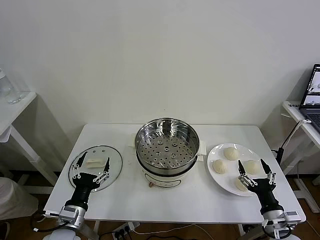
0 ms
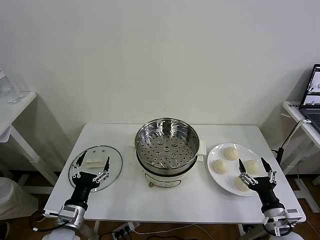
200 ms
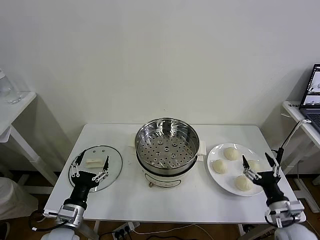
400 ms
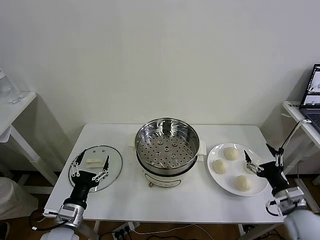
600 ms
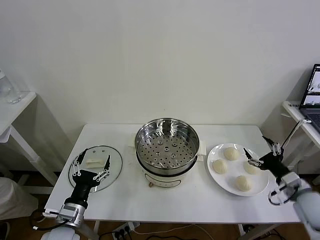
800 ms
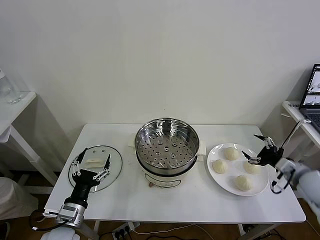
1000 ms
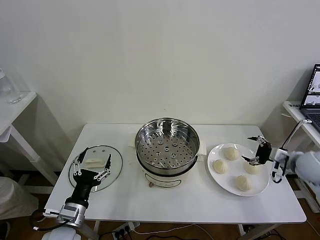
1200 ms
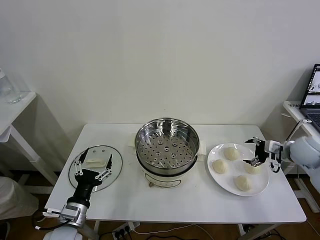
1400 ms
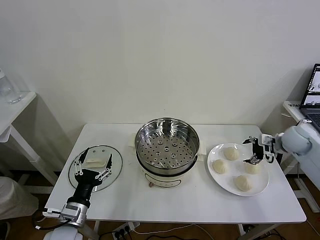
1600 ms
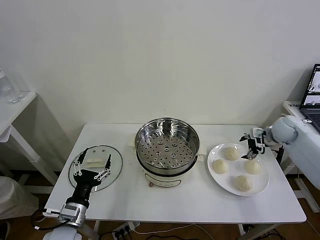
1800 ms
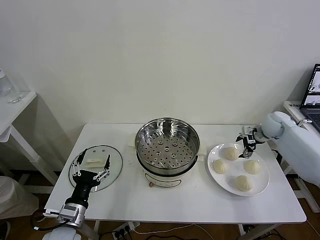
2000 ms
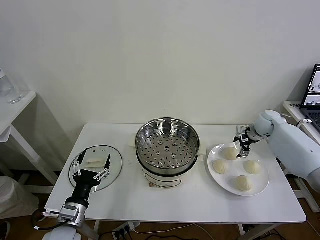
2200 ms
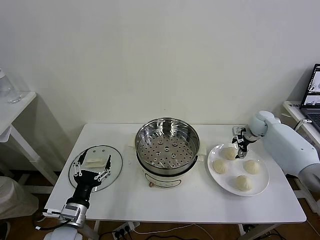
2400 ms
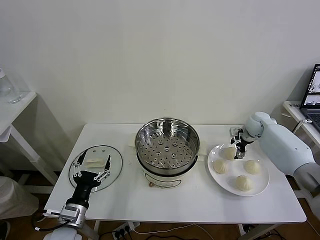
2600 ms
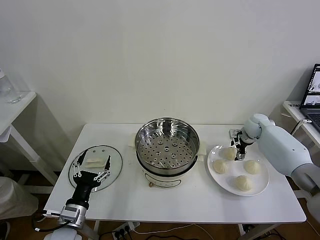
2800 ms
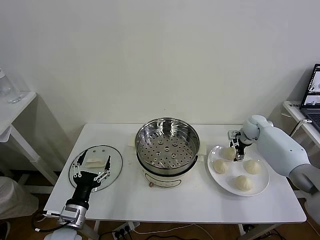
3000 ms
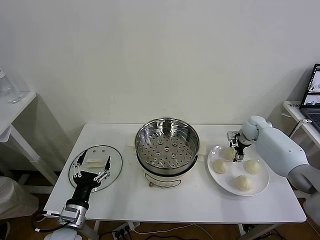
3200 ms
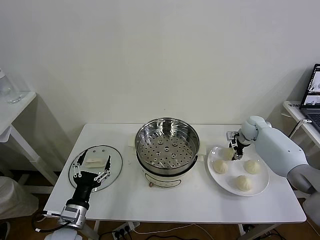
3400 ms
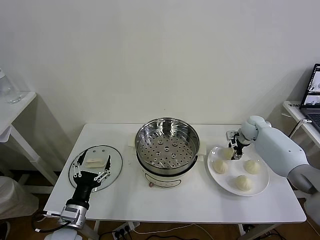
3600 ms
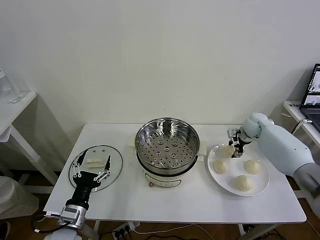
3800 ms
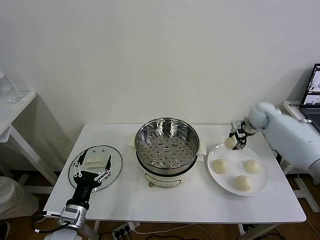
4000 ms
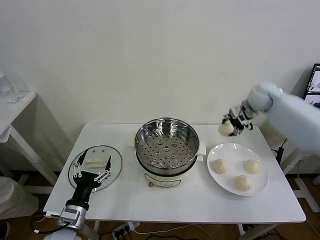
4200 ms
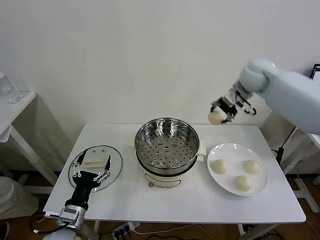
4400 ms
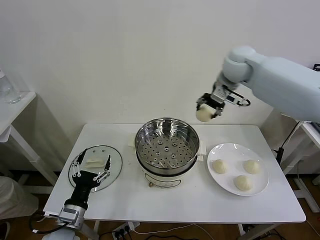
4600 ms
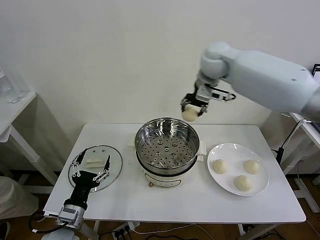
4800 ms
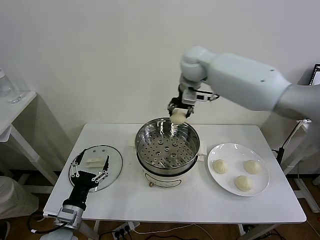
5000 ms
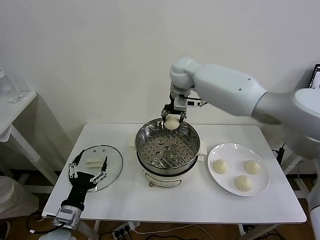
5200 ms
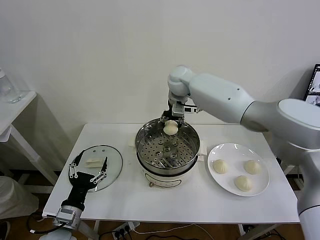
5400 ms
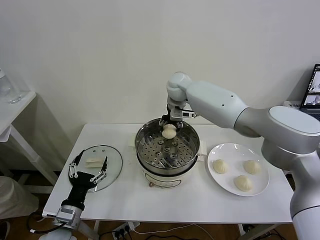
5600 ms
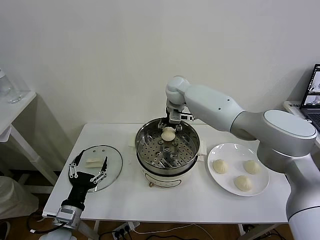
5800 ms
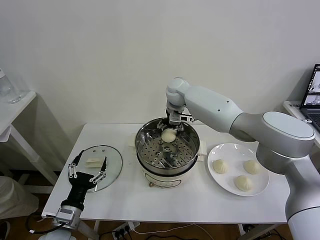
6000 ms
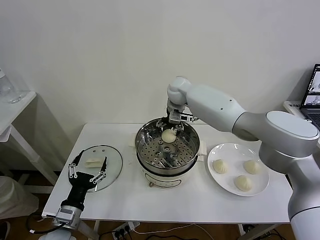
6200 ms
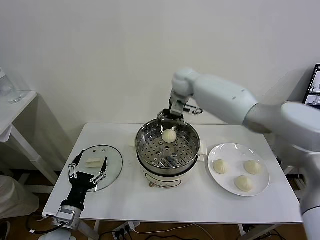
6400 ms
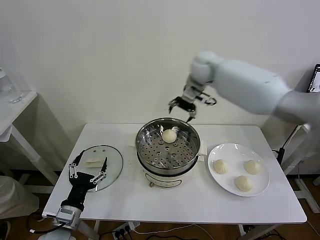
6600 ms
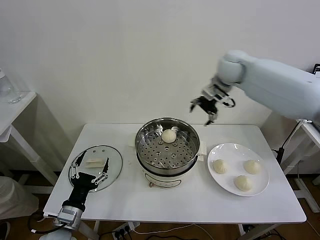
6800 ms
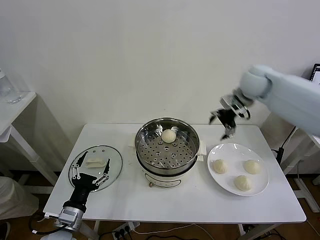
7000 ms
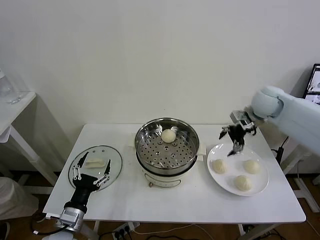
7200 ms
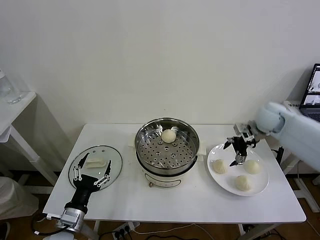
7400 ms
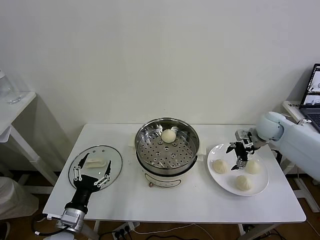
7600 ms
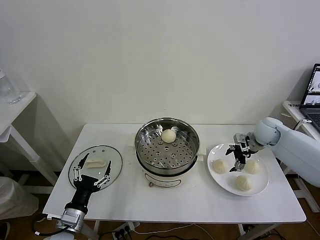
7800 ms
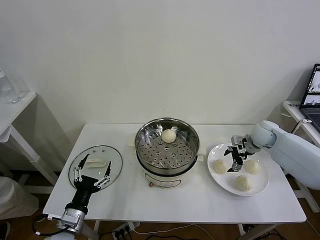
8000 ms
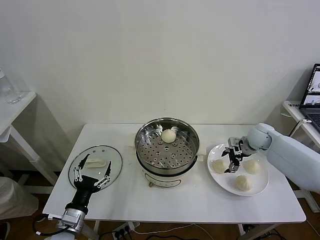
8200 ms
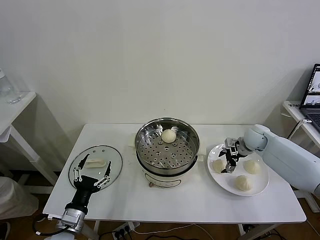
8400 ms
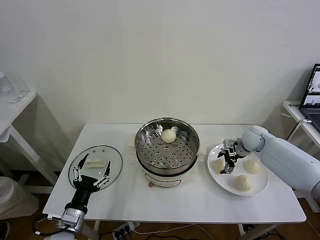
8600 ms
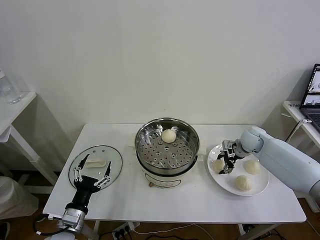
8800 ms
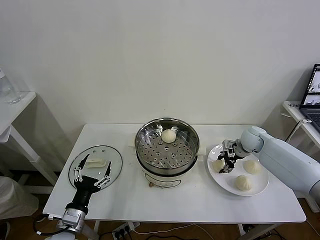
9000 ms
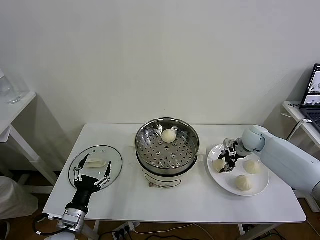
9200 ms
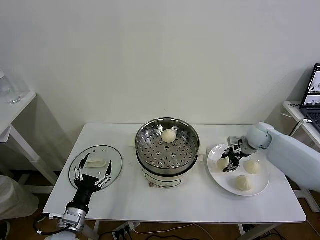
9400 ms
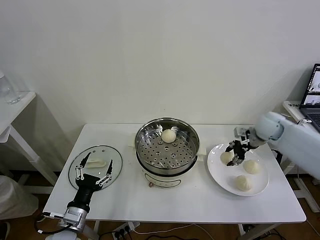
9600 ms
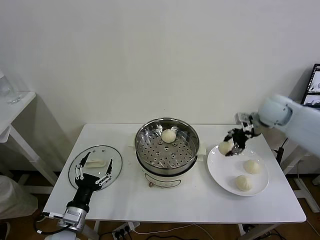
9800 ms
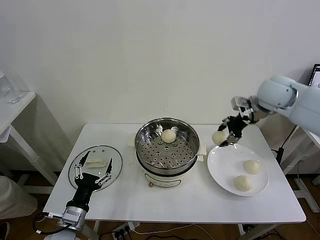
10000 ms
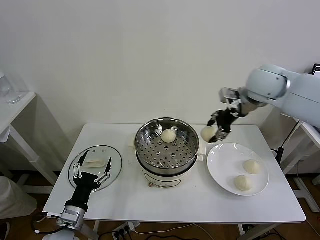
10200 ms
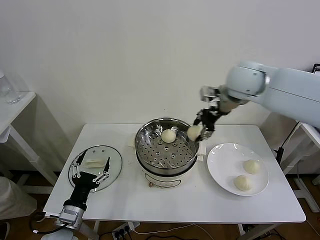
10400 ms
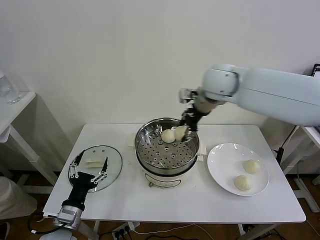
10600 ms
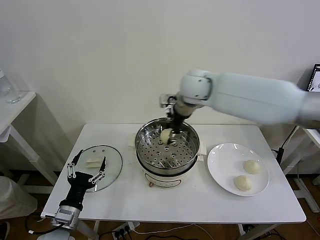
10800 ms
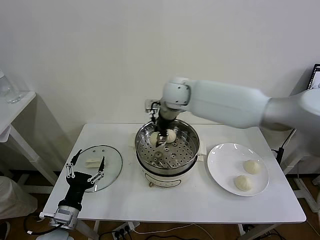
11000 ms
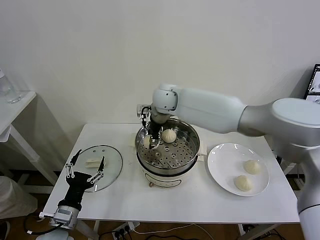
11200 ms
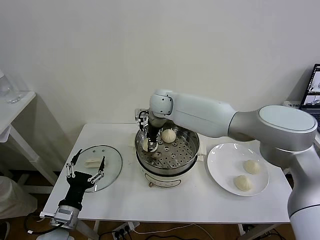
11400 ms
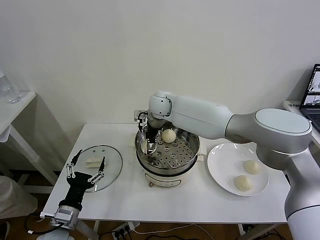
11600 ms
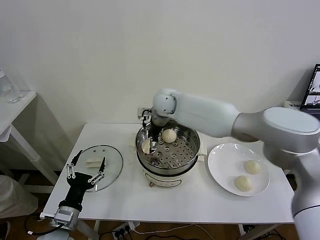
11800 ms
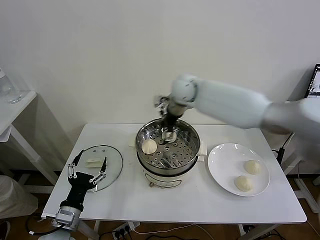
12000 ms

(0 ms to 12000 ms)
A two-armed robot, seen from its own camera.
Task of the whole recording: take steamed baozi put them in steamer then cover it.
Step, 0 ms - 3400 ms: Grasp the baozi in the plate with right gripper.
Step, 3600 ms - 6000 ms: Place the baozi on the steamer with right gripper.
Step, 6400 ms - 8800 ms: Grasp the baozi in the plate with right gripper.
Step, 9200 ms - 11800 ms: Place the baozi on the steamer with right gripper.
1600 ms - 3000 ms: The right gripper shifts approximately 15 cm forward, downward and to the left.
3000 ms - 4400 ms: The right gripper shifts approximately 30 cm upward and to the left, and closes its fingers.
4400 ms - 6000 ms: The right gripper moves to the left and downward, approximately 20 cm, and opens.
6000 ms - 7600 ms: The right gripper is displaced to the right by about 30 cm.
7600 ms - 9000 ms: The right gripper moves downward, approximately 5 cm, and closes up.
9000 ms - 10400 ms: The right gripper goes some 30 cm upward and to the left.
10400 ms - 12000 ms: The right gripper heads to the left and forward, covering approximately 10 cm, and opens up.

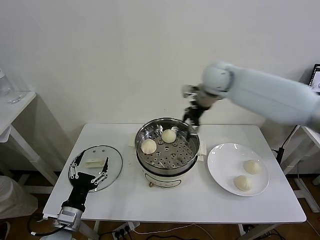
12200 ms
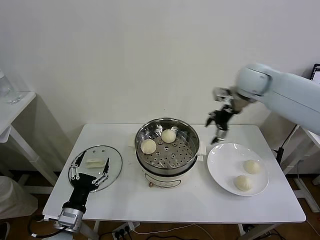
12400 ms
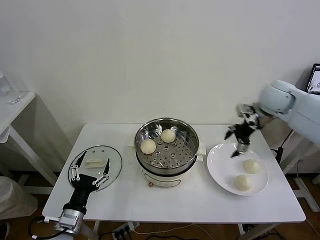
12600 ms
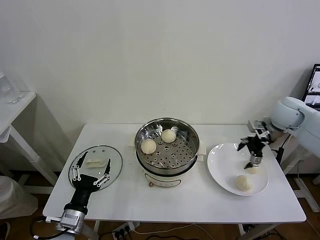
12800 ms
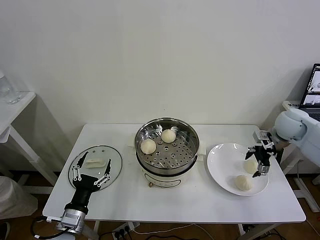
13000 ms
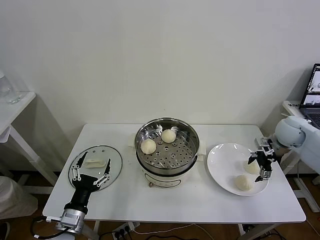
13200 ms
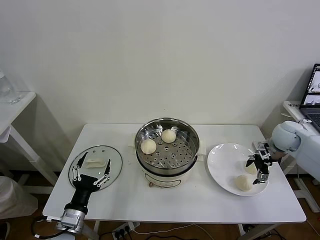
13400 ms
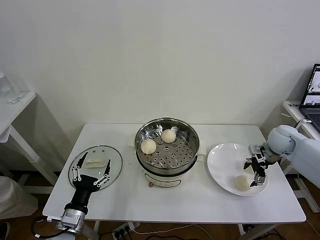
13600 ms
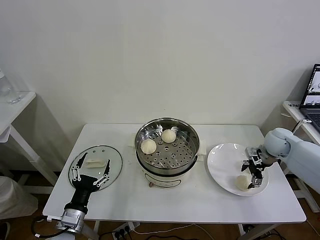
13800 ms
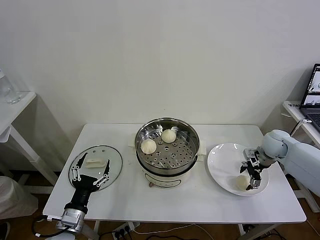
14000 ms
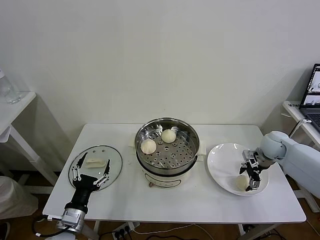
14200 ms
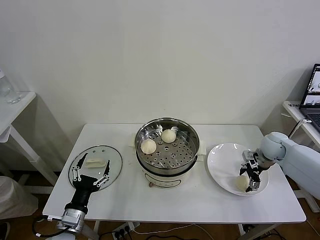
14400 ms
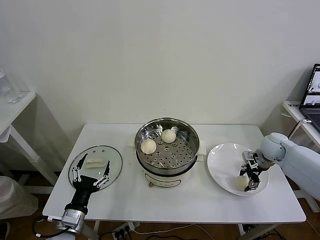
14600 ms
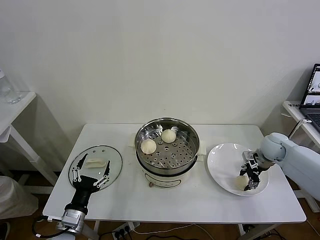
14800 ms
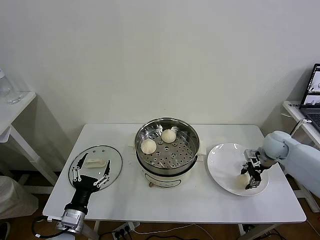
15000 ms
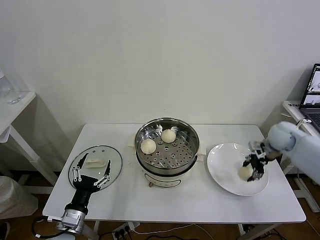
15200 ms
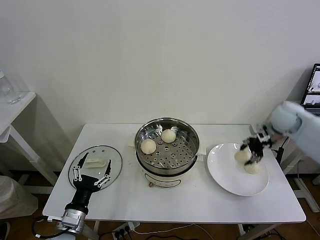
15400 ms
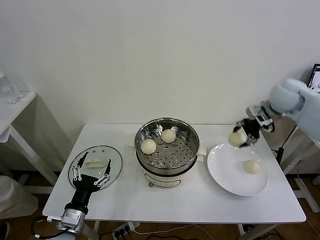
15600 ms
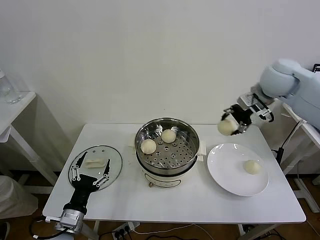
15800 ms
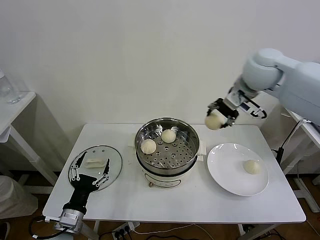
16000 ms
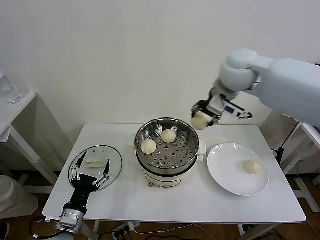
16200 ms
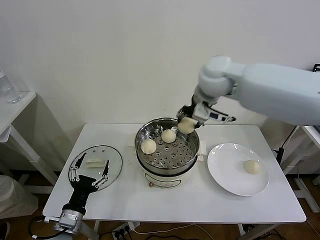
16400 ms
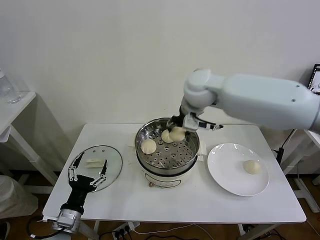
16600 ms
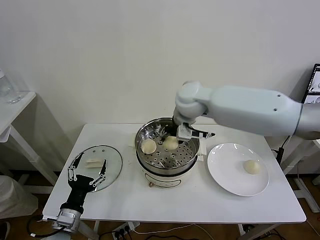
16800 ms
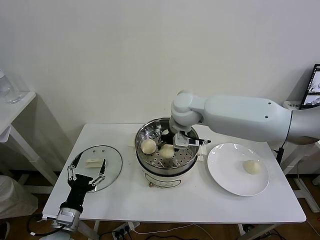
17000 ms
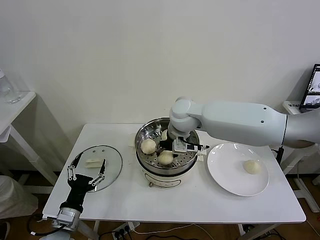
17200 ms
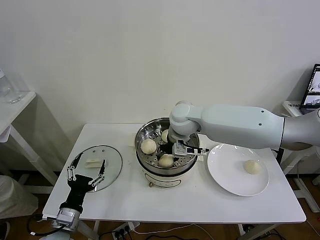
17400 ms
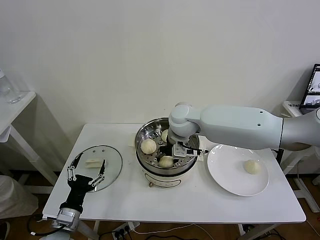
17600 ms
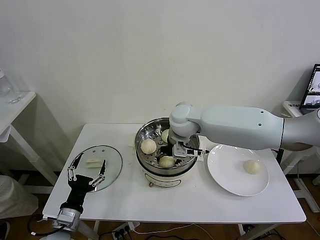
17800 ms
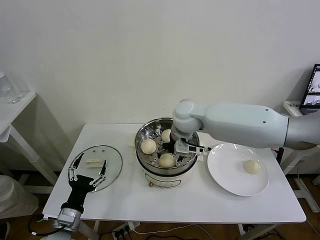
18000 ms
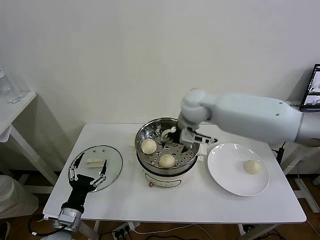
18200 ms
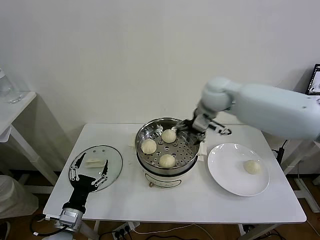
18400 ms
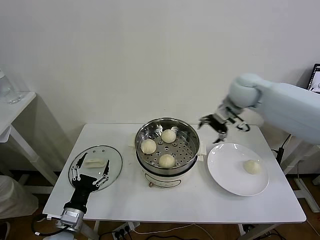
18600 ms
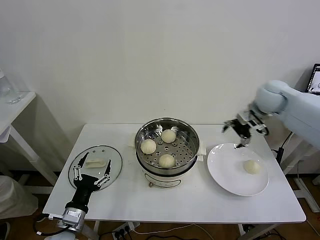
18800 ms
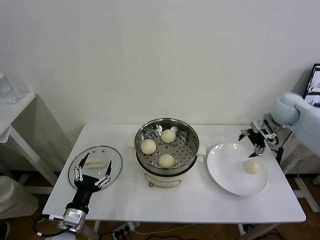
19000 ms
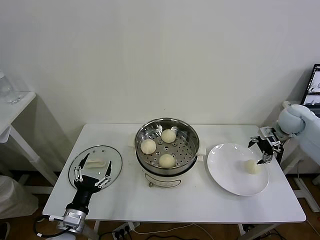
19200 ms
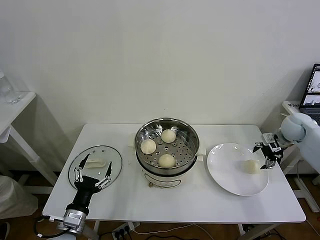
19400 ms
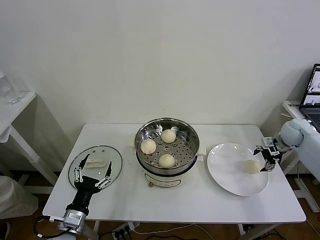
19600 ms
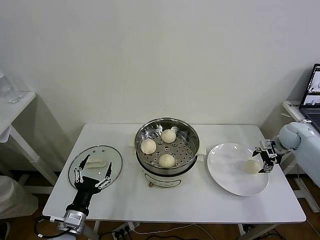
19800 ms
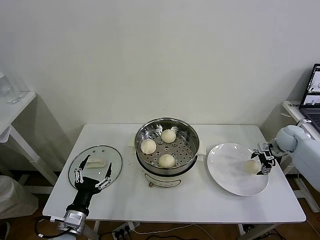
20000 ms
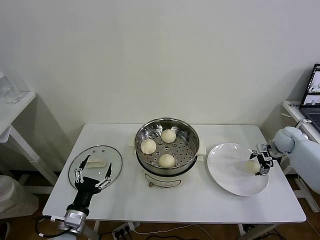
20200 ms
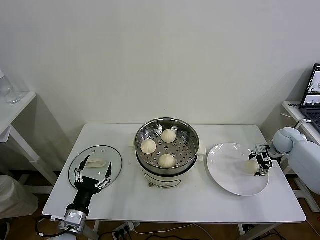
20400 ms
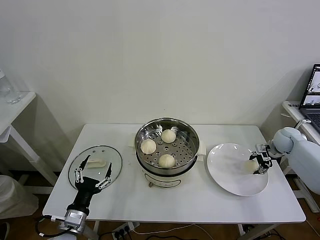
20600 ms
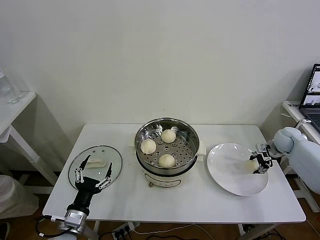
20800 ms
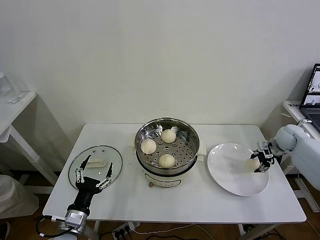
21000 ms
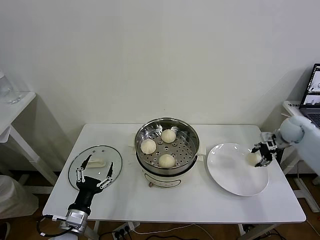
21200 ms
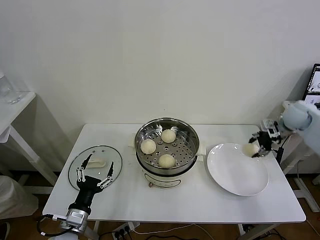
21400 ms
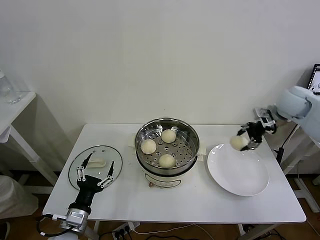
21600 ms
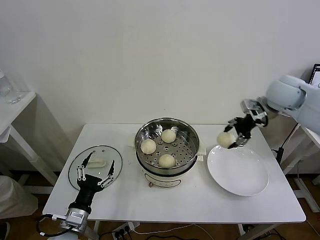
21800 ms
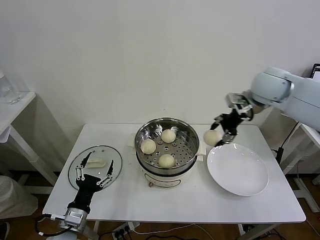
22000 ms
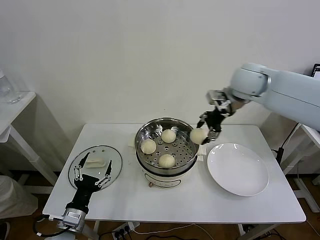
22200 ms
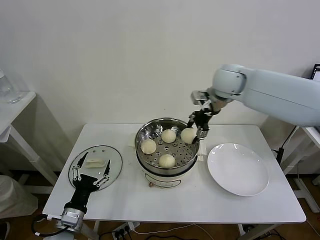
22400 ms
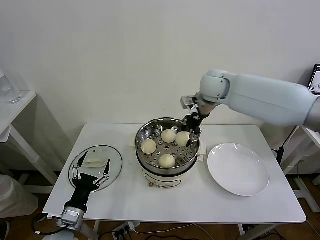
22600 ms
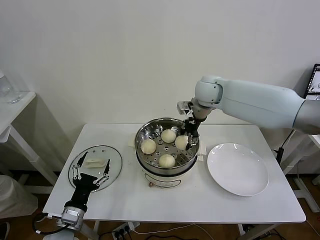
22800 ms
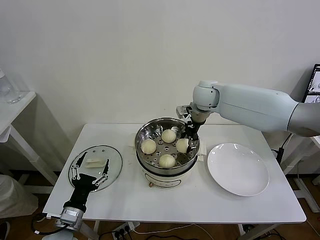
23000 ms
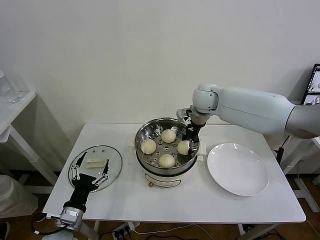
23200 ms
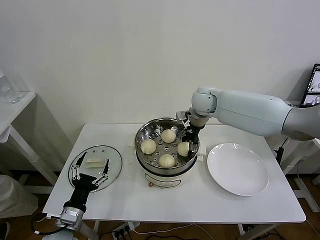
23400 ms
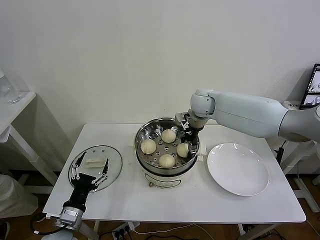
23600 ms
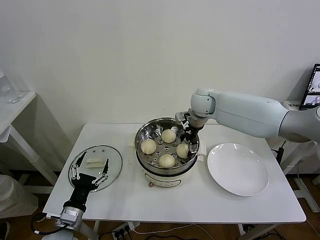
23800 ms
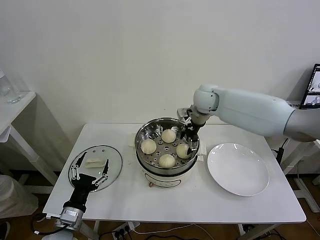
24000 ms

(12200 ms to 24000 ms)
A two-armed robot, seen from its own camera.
Task of the whole recording: take steamed baozi put them in steamer then cover it.
Step, 12200 ms - 14600 ms: Grasp the baozi in the plate with right gripper.
Step, 14800 ms - 18000 ms: Place the baozi on the steamer with right gripper.
Step, 18200 ms - 20600 ms: Grasp the baozi in the plate with right gripper.
Step, 20800 ms - 24000 ms: Place the baozi on the steamer with right gripper.
12200 ms - 13600 ms: The right gripper travels to the right and downward by some 30 cm.
13600 ms - 15200 ms: The right gripper closes up.
15200 ms - 16600 ms: The right gripper moves to the left and upward, roughly 35 cm.
16600 ms - 18200 ms: The right gripper opens.
18200 ms - 19600 ms: The right gripper is displaced to the right by some 40 cm.
19600 ms - 21000 ms: The right gripper closes its fingers.
21000 ms - 22600 ms: The right gripper moves to the left and upward, some 40 cm.
22600 ms - 24000 ms: The right gripper opens.
